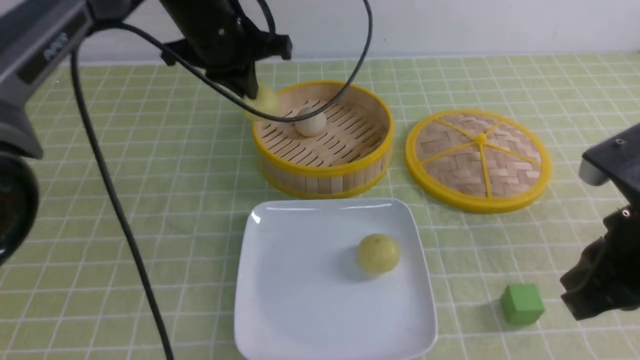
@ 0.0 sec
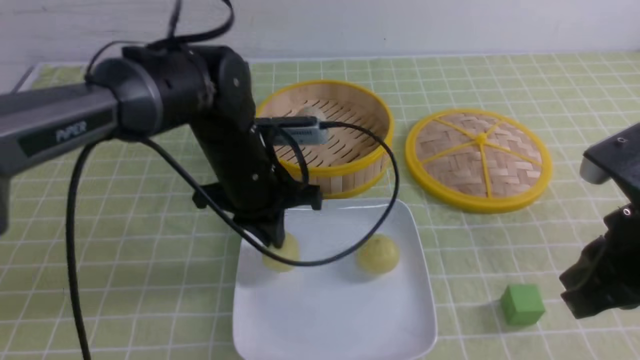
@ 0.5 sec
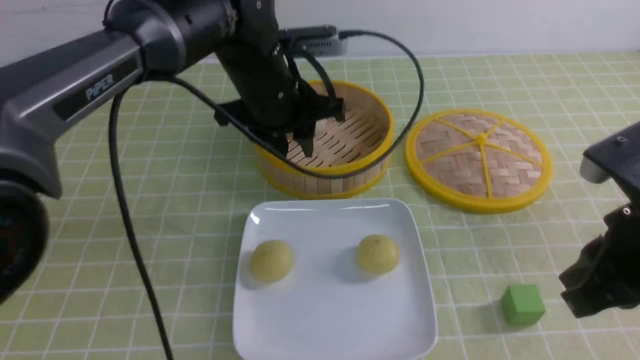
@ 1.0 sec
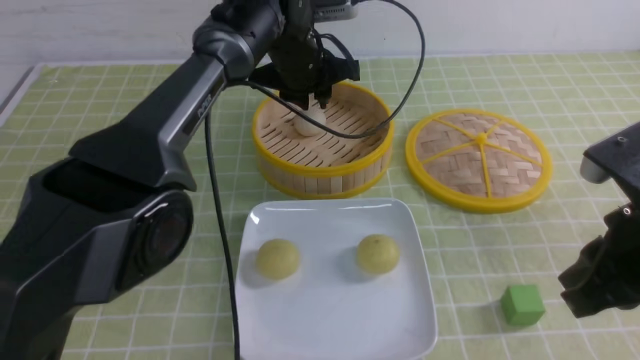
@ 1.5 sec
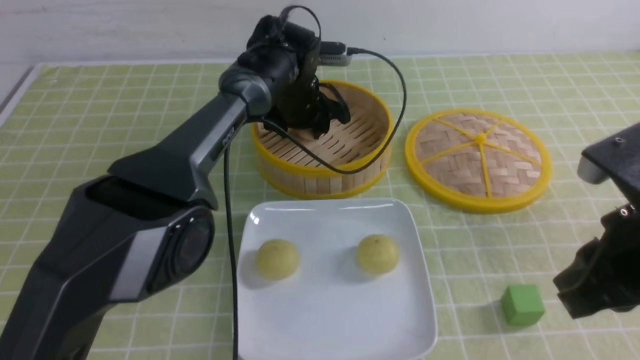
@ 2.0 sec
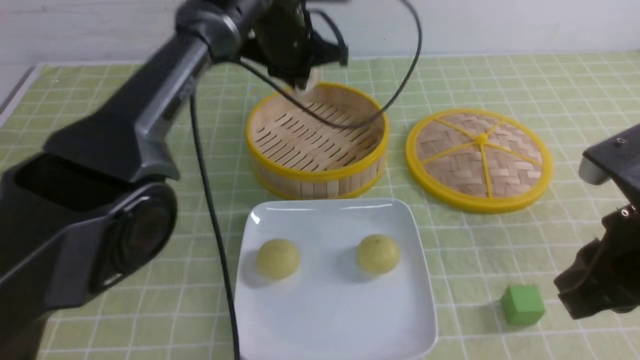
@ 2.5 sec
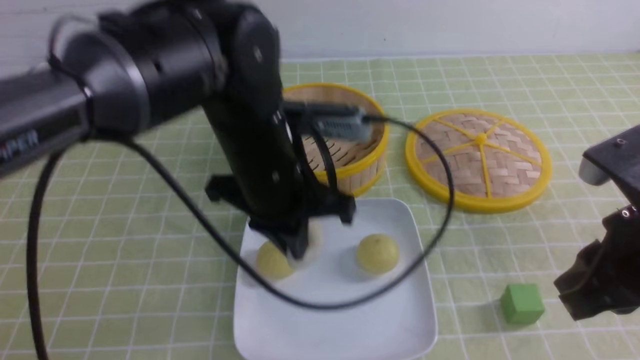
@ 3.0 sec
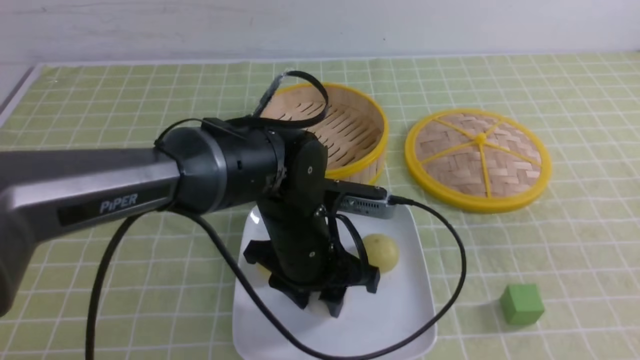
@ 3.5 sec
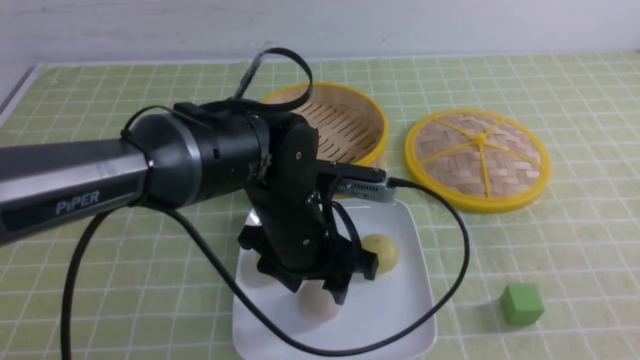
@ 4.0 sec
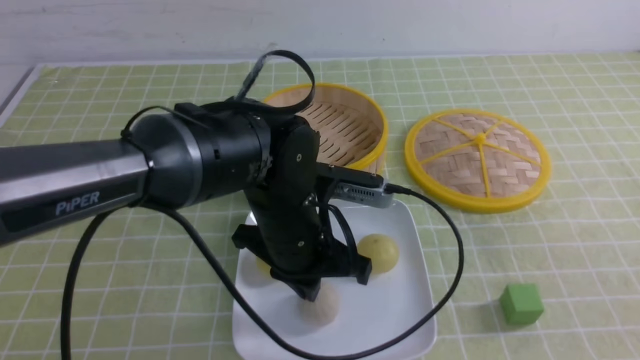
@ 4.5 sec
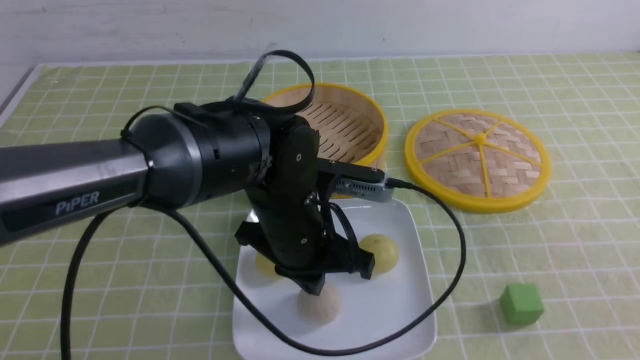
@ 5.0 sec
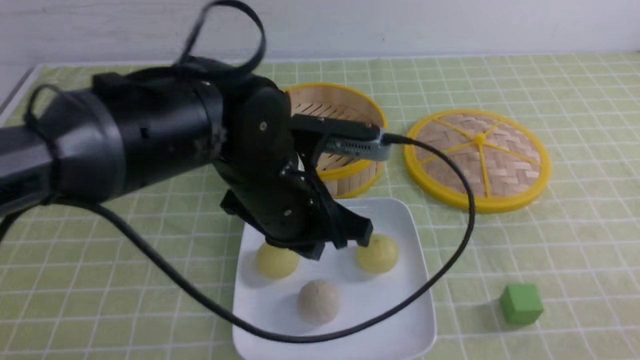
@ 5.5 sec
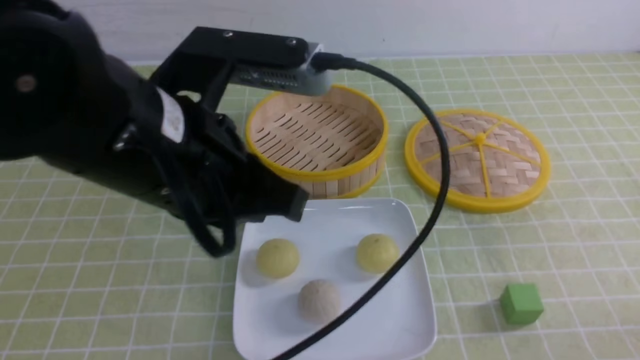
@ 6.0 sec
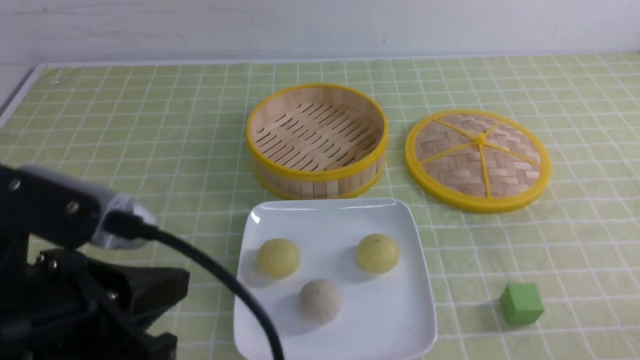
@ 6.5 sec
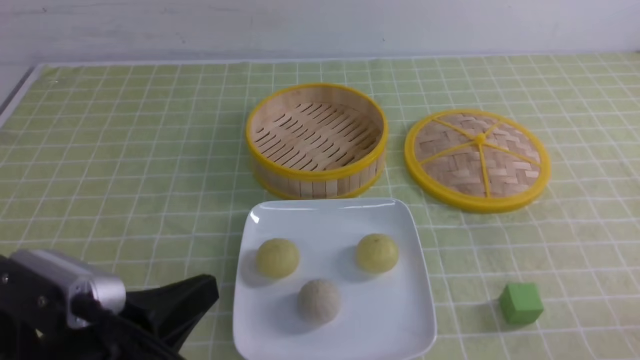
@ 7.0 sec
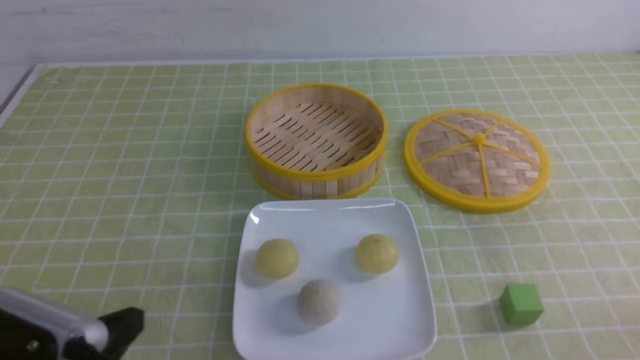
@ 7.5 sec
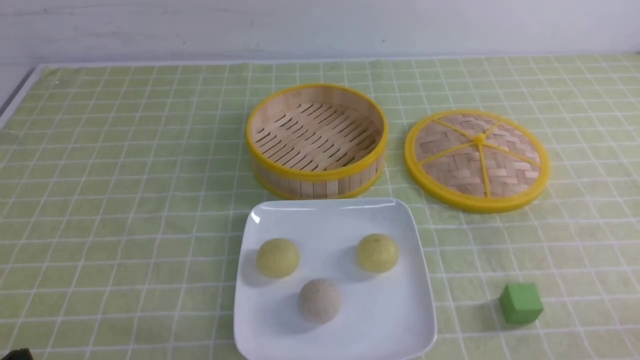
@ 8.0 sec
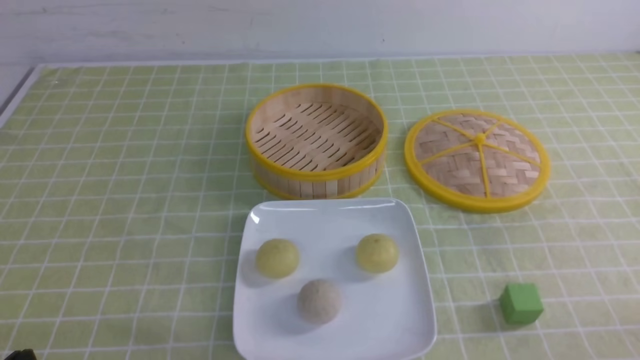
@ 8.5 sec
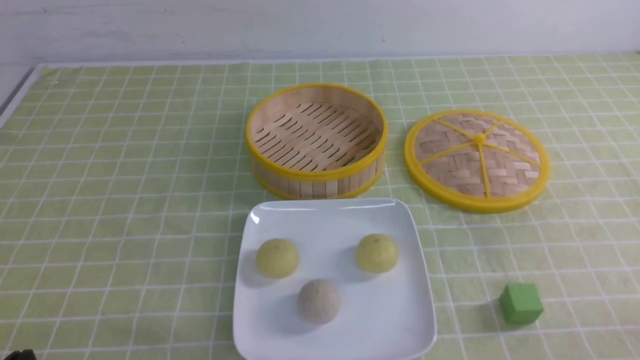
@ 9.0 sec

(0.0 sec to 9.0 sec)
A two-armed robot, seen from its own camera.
Step, 0.0 sec - 0.5 sec: use the left arm to put the steamed stuffed bun into the plate.
Step, 1.0 sec - 2.0 sec: use the left arm to grab the steamed stuffed bun that is closest to it.
Step, 2.5 sec - 3.0 sec: use the left arm to put the steamed stuffed bun into the plate.
0.0 sec - 2.0 sec: The left gripper shifts roughly 15 cm downward, to the right and forward, and opens its fingers.
2.0 sec - 4.5 sec: The right gripper heads backward and to the right, covering about 15 cm. The left gripper goes about 25 cm backward, and closes up.
4.5 sec - 7.0 sec: The left gripper goes some 25 cm backward and to the left, while the right gripper goes approximately 10 cm downward.
7.0 sec - 9.0 sec: The left gripper moves to the left and downward, approximately 10 cm.
